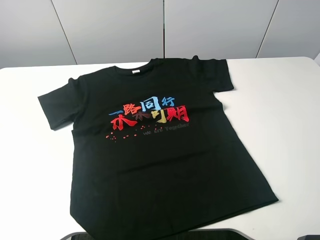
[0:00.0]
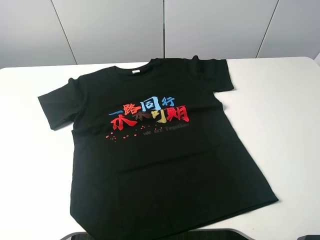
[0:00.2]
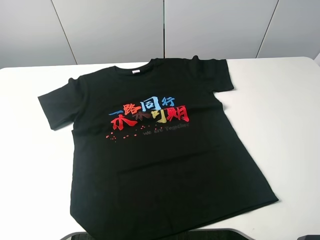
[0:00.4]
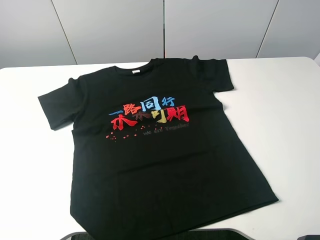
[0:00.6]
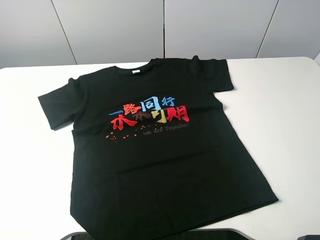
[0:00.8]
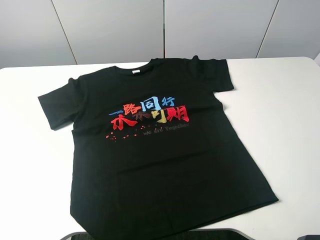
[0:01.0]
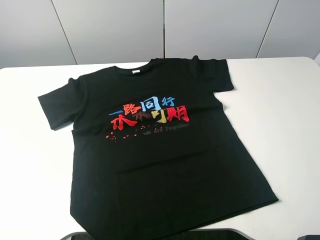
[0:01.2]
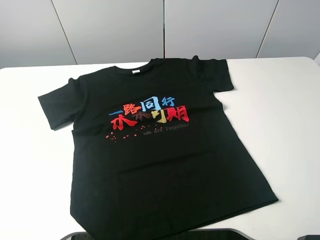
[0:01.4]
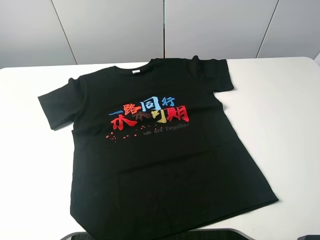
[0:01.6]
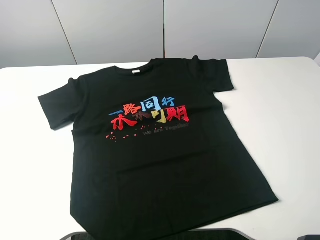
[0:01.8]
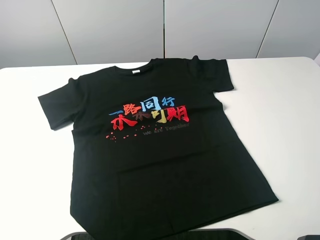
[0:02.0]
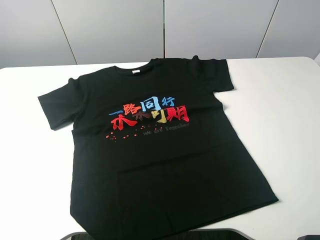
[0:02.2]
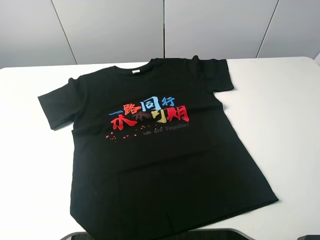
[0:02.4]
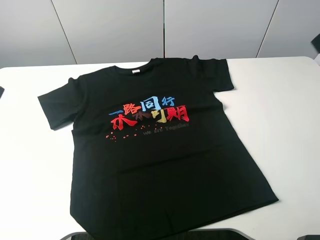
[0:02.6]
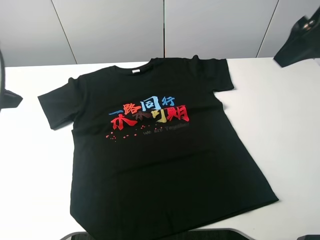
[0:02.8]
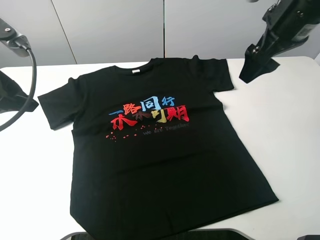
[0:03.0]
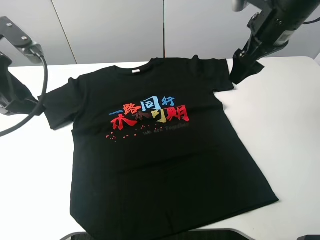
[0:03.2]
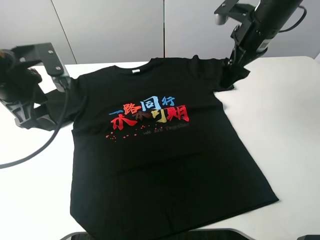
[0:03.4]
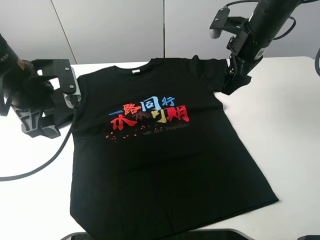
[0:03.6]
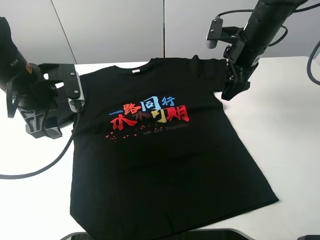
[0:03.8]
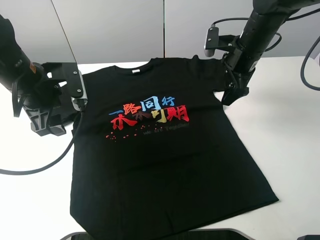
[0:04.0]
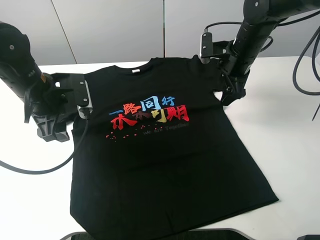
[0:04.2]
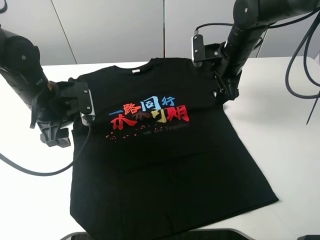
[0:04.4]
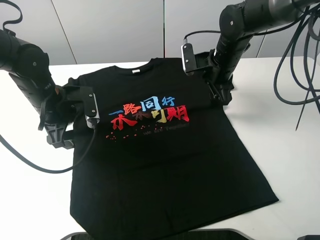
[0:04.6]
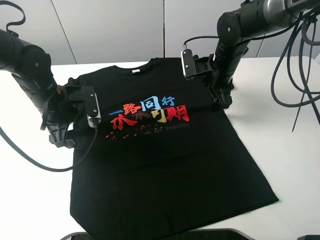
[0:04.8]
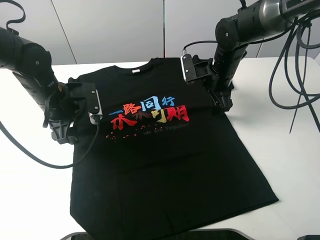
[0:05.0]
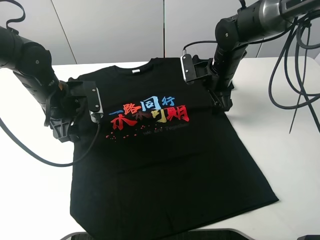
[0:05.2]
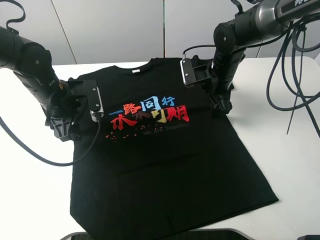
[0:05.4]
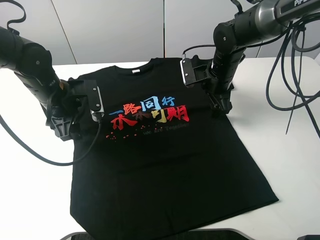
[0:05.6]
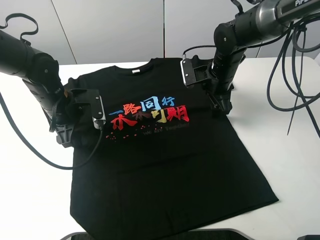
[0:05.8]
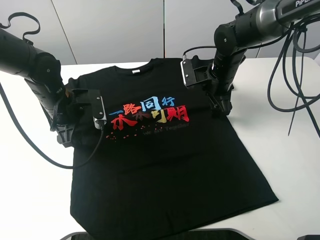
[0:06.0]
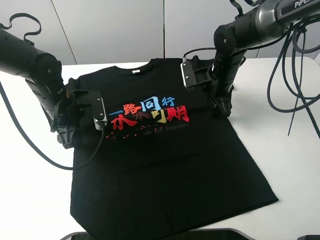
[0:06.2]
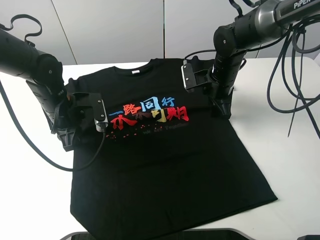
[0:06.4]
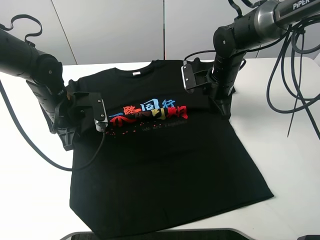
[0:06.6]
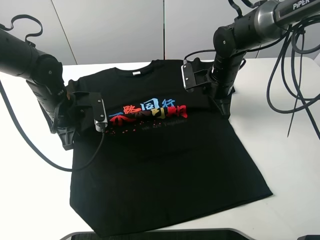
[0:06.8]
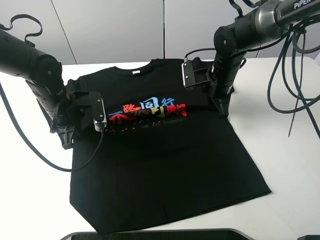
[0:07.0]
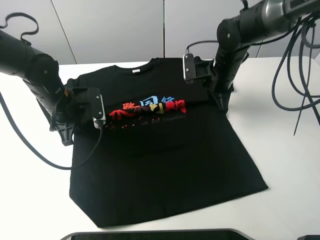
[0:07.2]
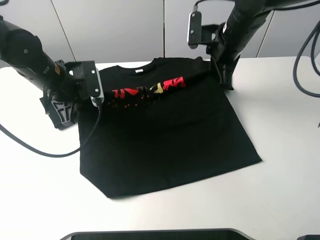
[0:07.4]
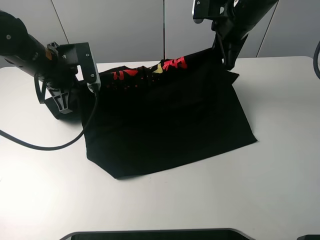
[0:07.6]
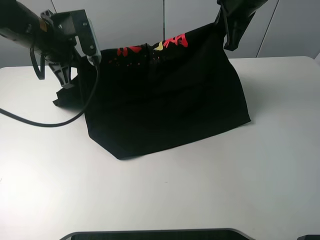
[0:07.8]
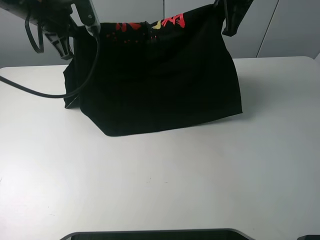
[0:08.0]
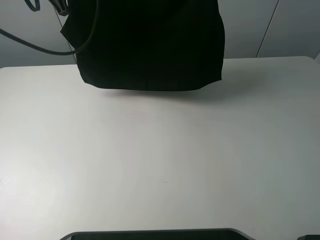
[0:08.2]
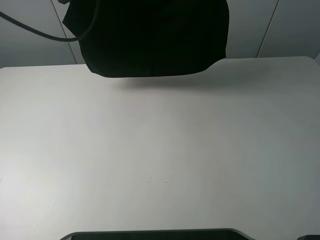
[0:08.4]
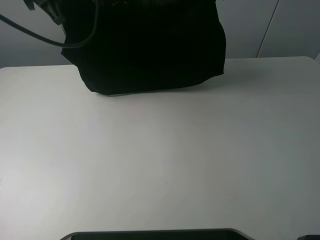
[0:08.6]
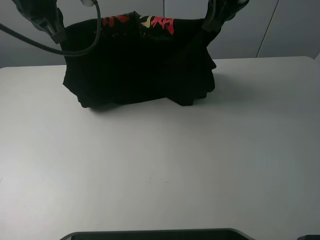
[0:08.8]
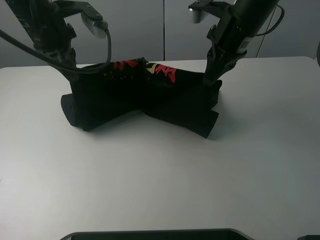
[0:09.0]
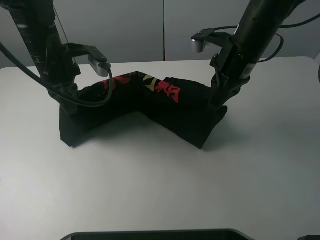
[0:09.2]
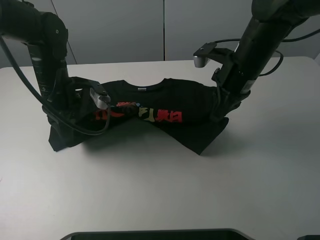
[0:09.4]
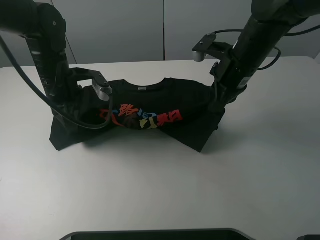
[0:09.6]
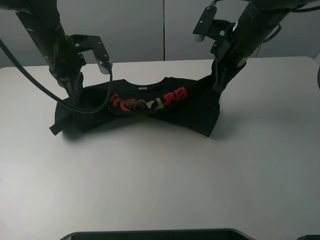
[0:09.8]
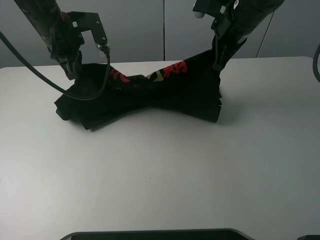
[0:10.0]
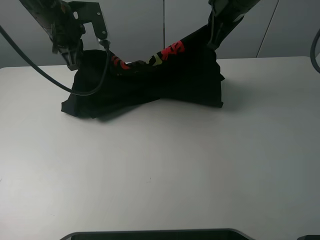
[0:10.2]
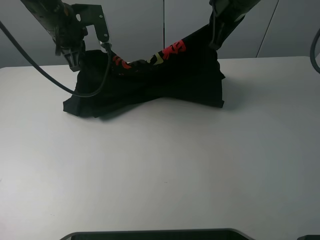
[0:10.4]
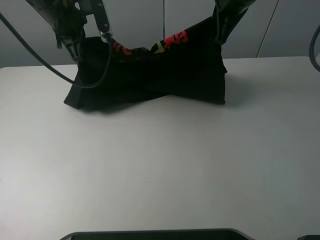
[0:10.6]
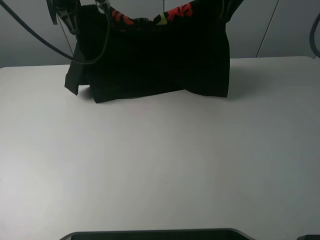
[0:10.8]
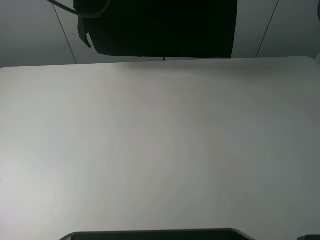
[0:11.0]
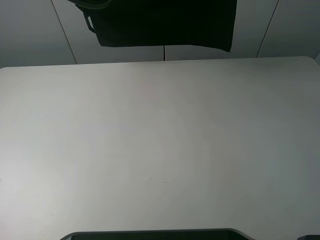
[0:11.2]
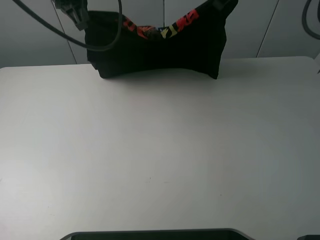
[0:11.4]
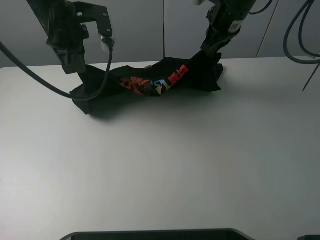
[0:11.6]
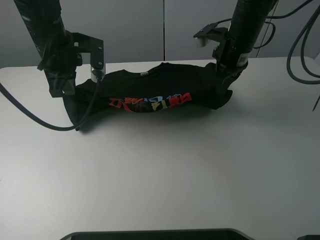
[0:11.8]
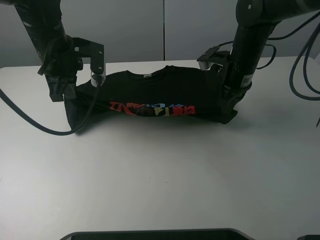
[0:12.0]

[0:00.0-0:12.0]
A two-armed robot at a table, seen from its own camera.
Task of the whole recording: fold the clothes on the table.
Step, 0:00.0 to 0:06.4: Lift the black T-shirt with the left gripper.
0:01.6 to 0:03.0: The two grippers go some 25 cm forward.
0:03.0 to 0:04.4: The left gripper travels downward, to the right and forward by some 15 cm; the right gripper is displaced downward and forward by some 15 cm.
0:04.4 to 0:06.0: The right gripper shifts some 5 cm downward.
0:06.0 to 0:07.6: The right gripper shifts roughly 15 cm upward, and closes up. The left gripper is displaced upward by roughly 10 cm, and closes its fingers.
0:07.6 to 0:09.0: The left gripper travels upward and back again, about 15 cm each way. The right gripper reaches about 10 cm upward, then returns.
0:09.0 to 0:10.4: The grippers both shift forward by some 5 cm. The left gripper moves roughly 10 cm downward and comes back.
0:10.4 to 0:12.0: The right gripper is displaced downward by some 10 cm. The left gripper goes roughly 5 cm backward, and reaches about 15 cm upward, then returns.

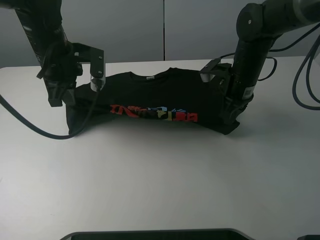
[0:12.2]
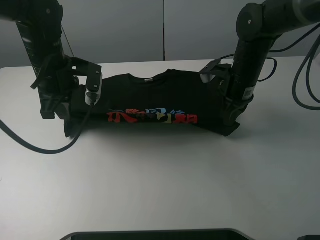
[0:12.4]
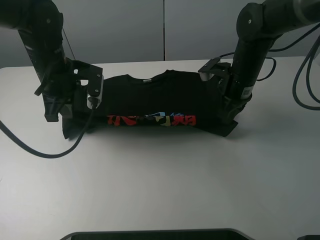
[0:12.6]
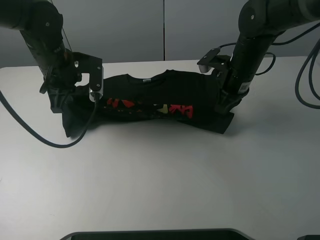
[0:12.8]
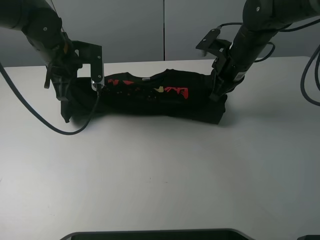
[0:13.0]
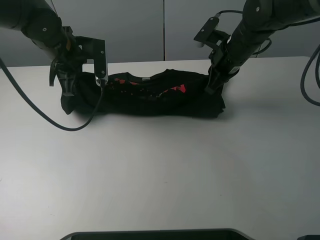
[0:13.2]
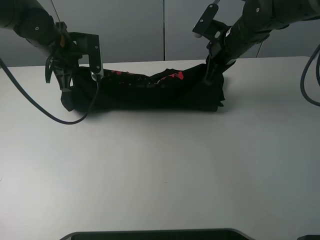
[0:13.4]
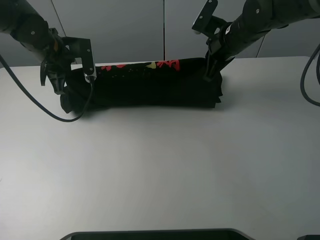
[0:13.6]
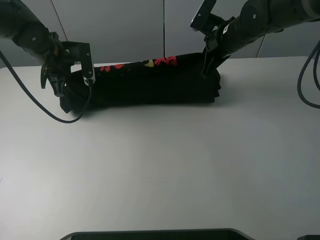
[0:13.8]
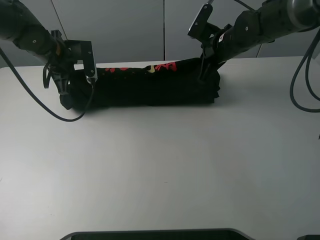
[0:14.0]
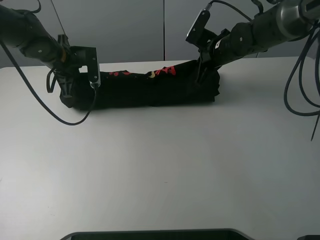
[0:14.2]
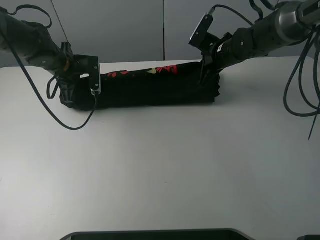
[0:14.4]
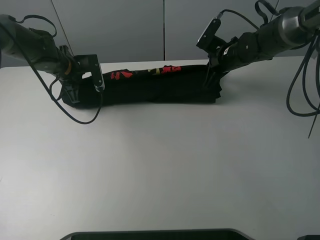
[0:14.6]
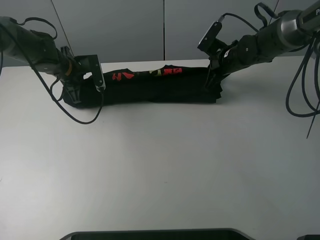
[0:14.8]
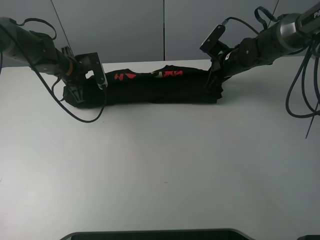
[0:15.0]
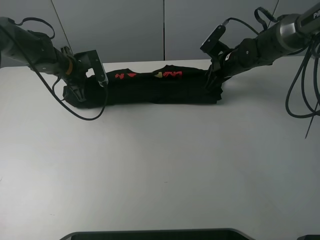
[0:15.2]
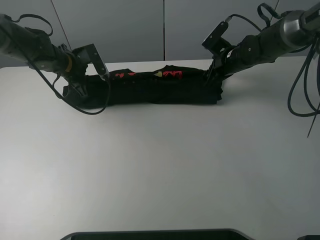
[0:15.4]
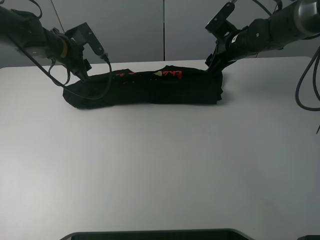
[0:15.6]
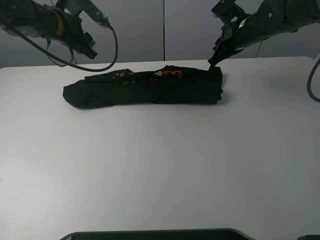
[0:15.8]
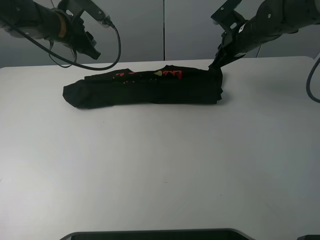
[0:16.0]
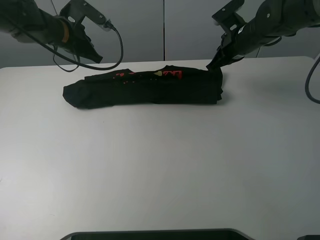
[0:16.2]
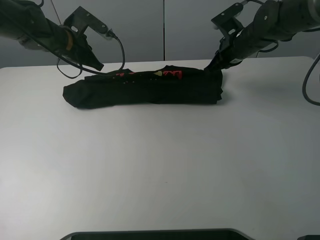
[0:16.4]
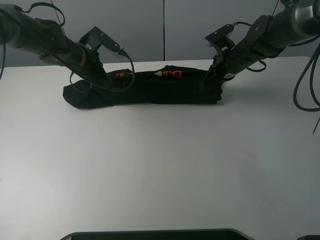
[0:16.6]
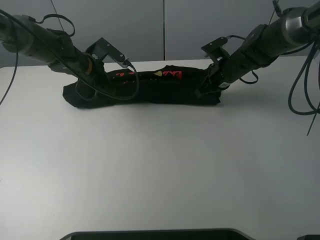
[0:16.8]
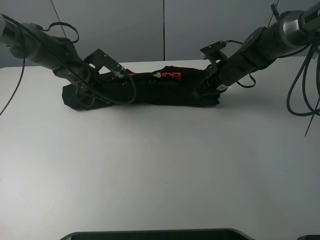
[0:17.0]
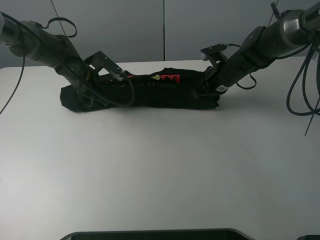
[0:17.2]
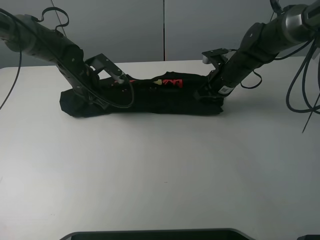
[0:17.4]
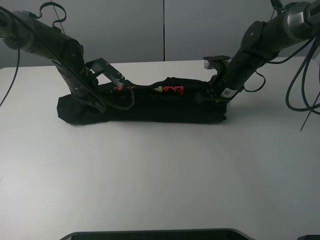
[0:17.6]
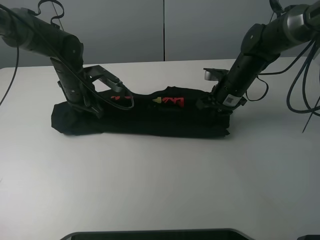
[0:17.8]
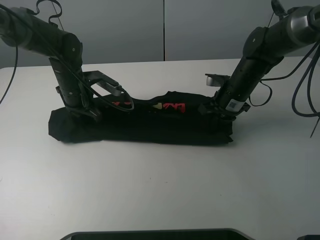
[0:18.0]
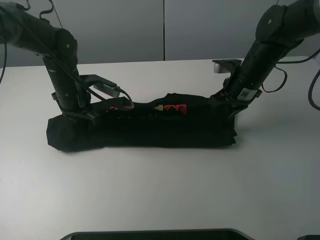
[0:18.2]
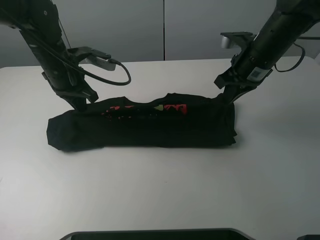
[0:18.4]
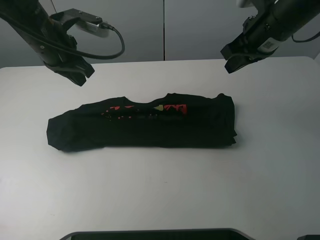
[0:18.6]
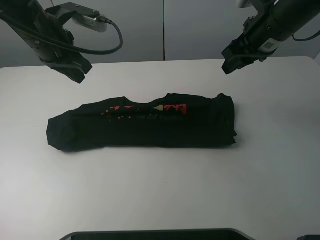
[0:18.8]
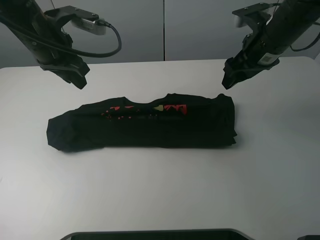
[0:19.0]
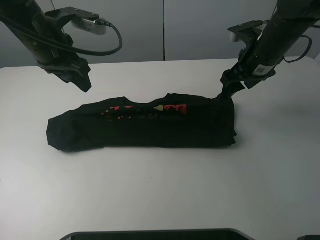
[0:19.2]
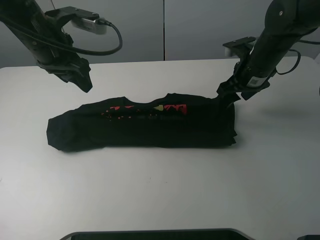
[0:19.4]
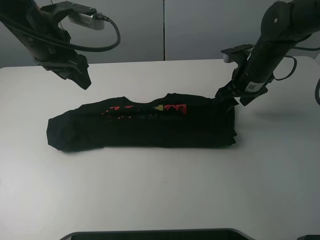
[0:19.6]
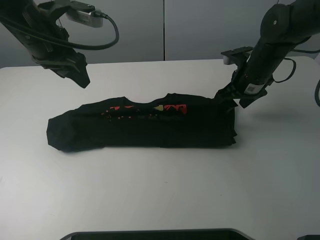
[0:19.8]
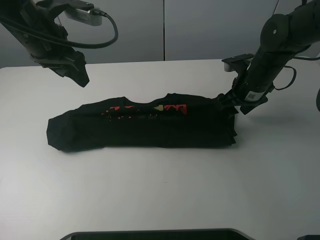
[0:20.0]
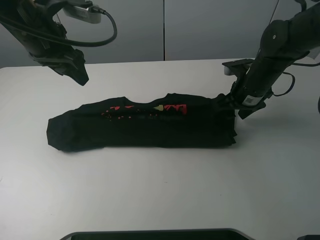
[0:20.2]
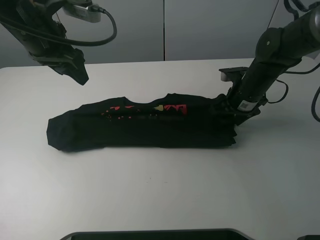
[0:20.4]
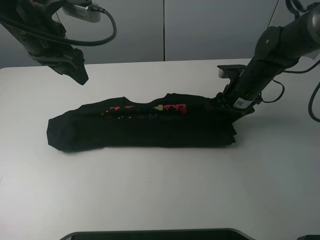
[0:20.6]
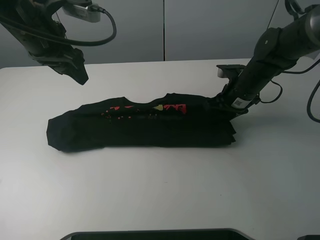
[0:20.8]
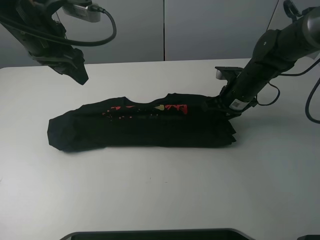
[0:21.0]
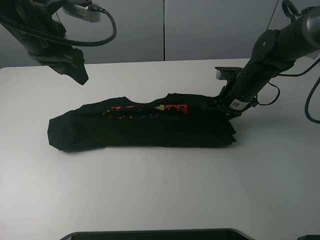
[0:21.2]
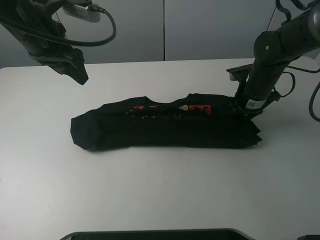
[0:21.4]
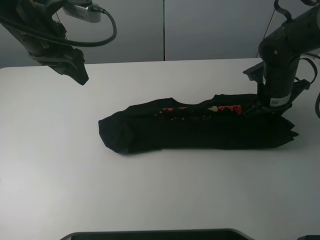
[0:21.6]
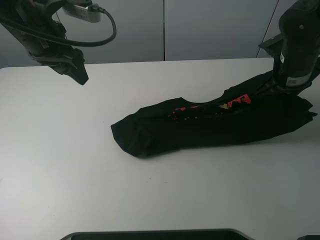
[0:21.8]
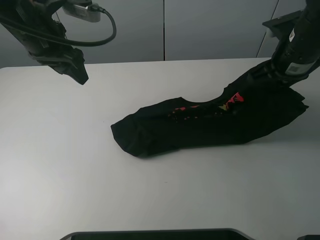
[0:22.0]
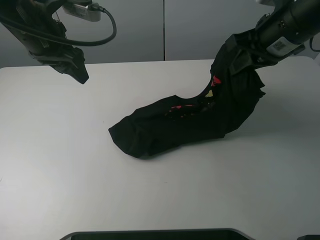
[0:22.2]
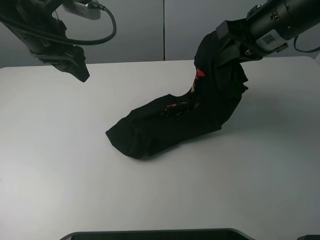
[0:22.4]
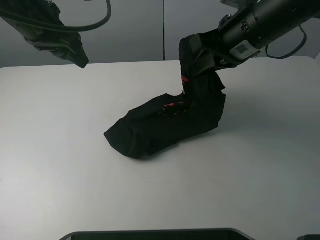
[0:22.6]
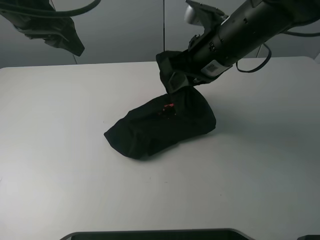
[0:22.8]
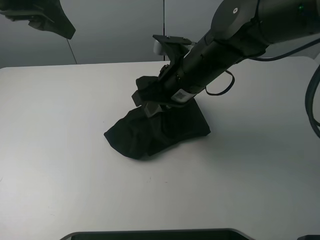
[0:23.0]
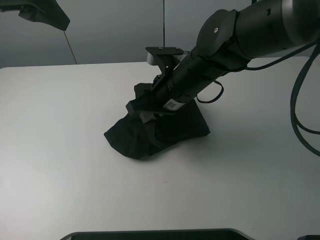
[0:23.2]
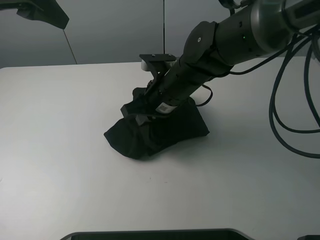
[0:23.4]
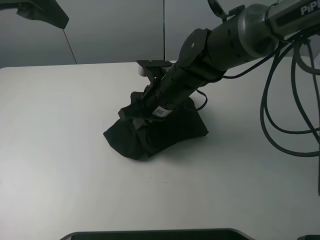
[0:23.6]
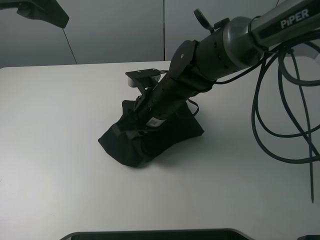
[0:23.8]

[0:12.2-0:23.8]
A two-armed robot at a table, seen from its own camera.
Task of the whole recording: fold the clothes on the table.
Step, 0:12.2 to 0:15.4: Fold the black T-shirt downward with the left gripper.
Step, 0:15.6 to 0:21.4: Grasp the black T-shirt with the right gripper.
0:12.2 to 0:13.6: Both grippers move forward, roughly 5 cm.
0:13.6 to 0:15.0: The grippers both shift downward by approximately 10 cm.
0:15.0 to 0:16.6: The left gripper moves to the right, about 5 cm, reaches approximately 10 cm upward, then returns, and opens and closes again. The right gripper moves some 10 cm upward and comes back, and opens, then closes again.
0:16.6 to 0:18.0: The grippers both shift backward by approximately 5 cm.
0:18.0 to 0:19.4: The left gripper shifts roughly 15 cm upward, and opens; the right gripper goes about 5 cm upward, and opens.
0:19.4 to 0:21.0: The right gripper heads downward, covering roughly 5 cm, and closes up.
0:21.0 to 0:22.4: The right gripper travels upward by roughly 20 cm.
0:22.4 to 0:23.8: The right gripper travels to the left and downward by about 25 cm, while the left gripper is displaced upward by about 10 cm.
